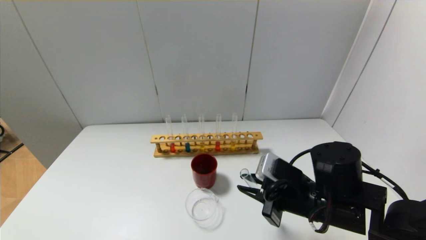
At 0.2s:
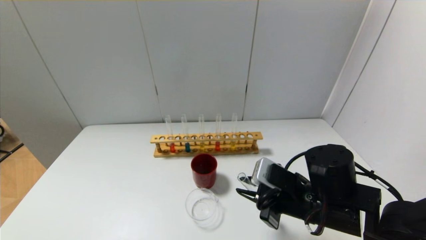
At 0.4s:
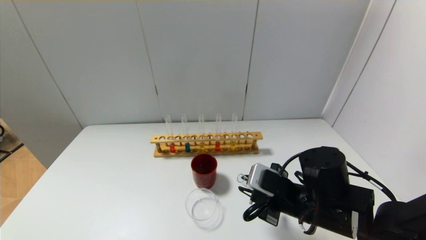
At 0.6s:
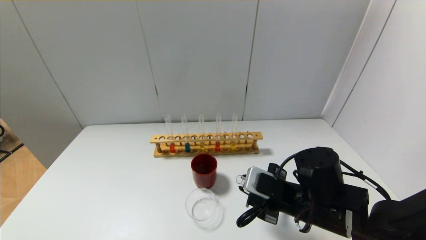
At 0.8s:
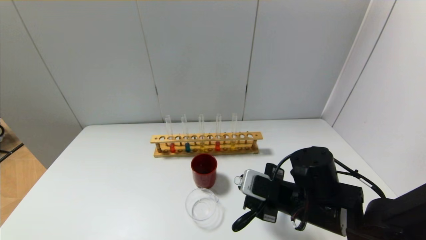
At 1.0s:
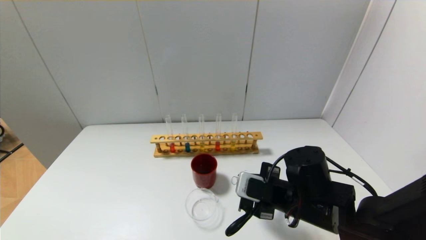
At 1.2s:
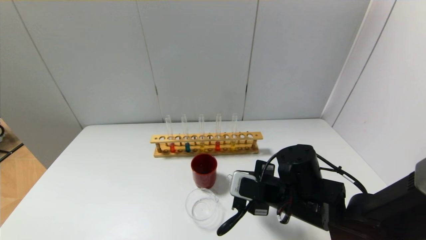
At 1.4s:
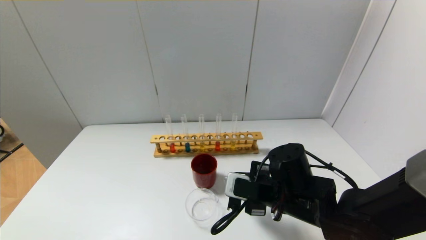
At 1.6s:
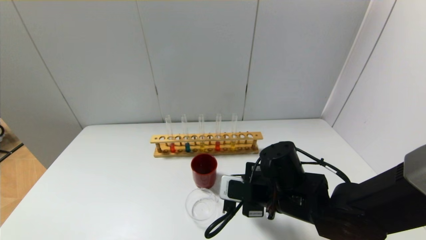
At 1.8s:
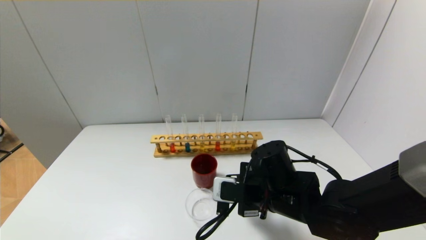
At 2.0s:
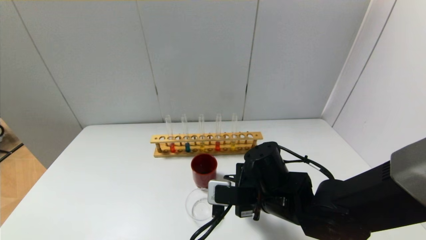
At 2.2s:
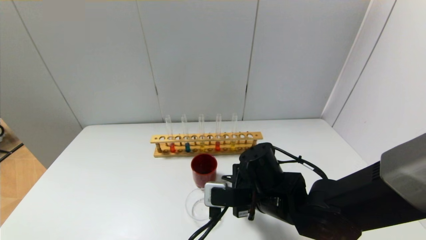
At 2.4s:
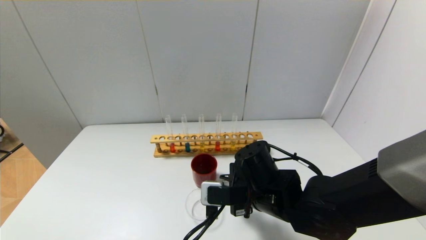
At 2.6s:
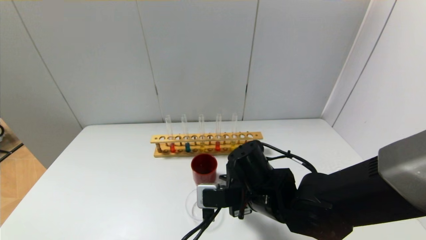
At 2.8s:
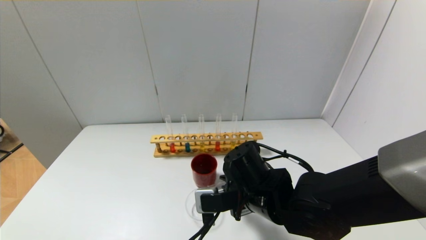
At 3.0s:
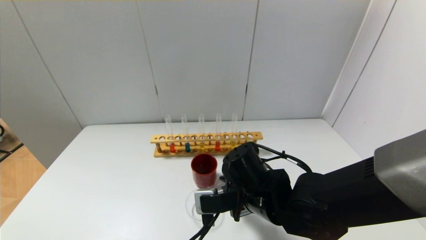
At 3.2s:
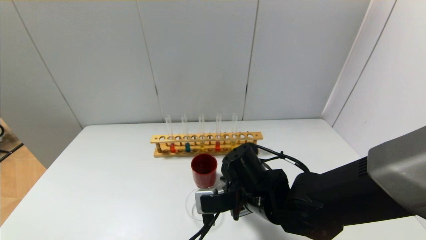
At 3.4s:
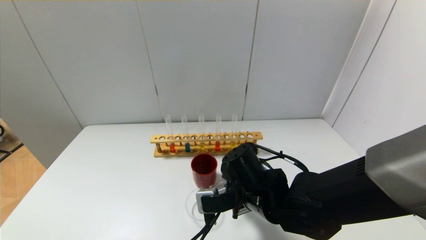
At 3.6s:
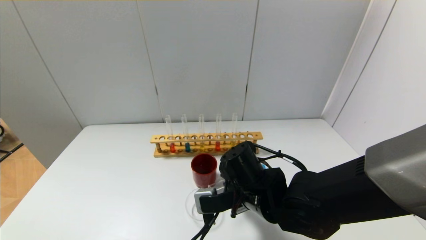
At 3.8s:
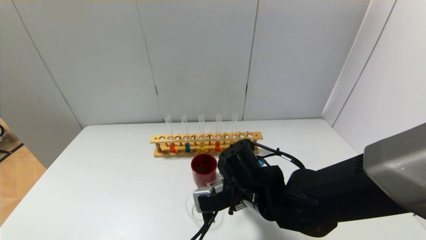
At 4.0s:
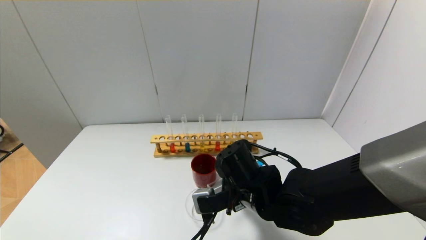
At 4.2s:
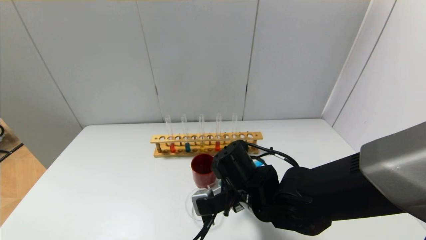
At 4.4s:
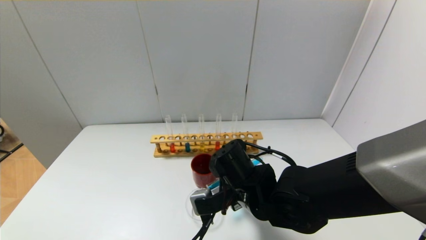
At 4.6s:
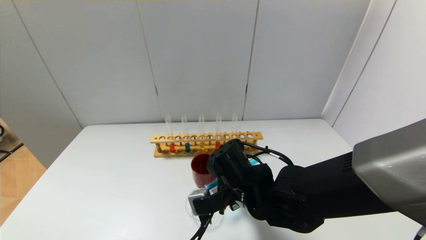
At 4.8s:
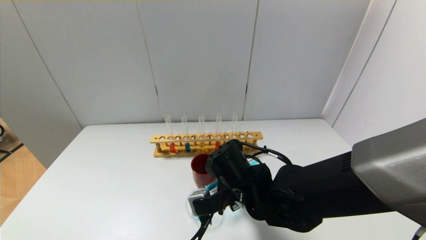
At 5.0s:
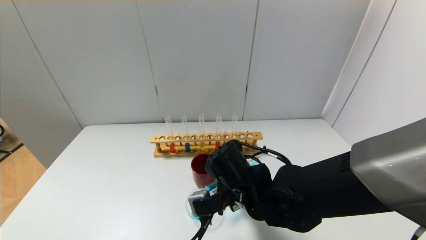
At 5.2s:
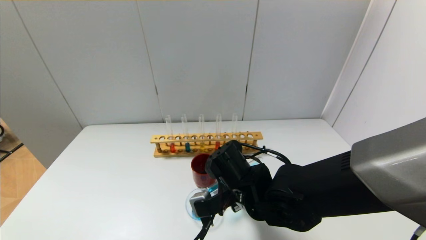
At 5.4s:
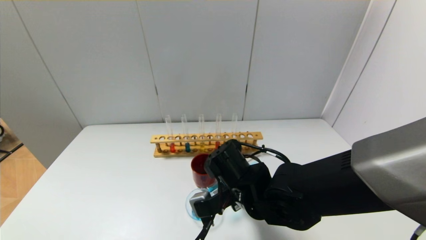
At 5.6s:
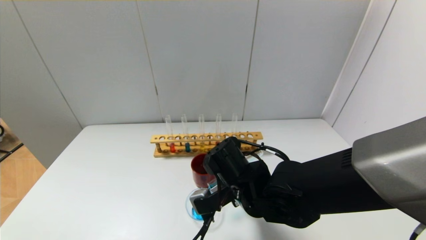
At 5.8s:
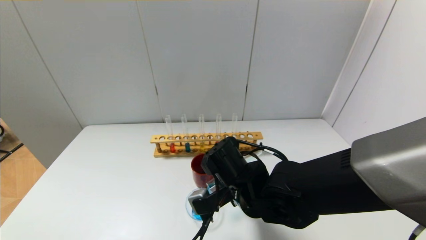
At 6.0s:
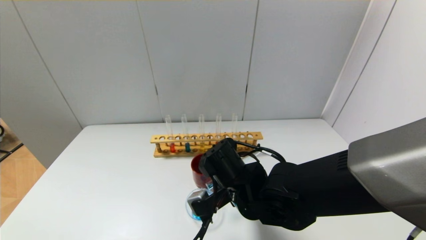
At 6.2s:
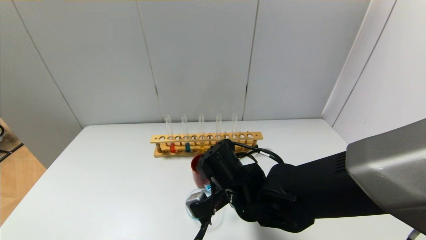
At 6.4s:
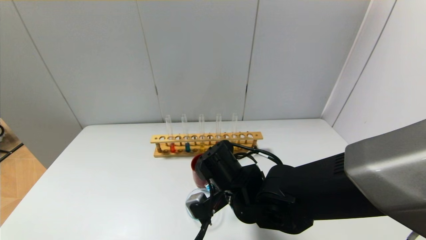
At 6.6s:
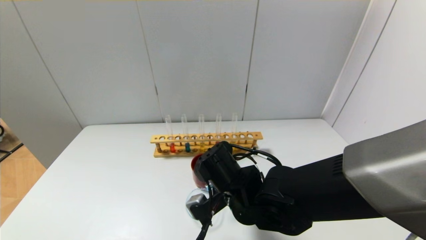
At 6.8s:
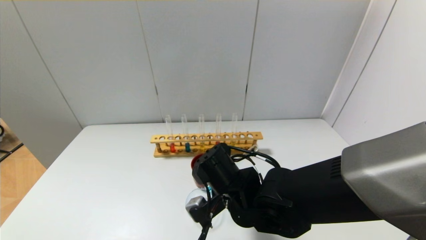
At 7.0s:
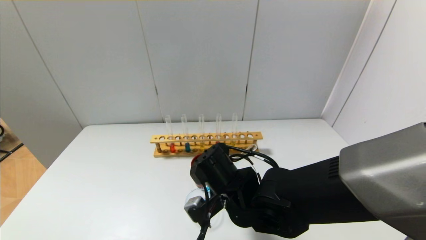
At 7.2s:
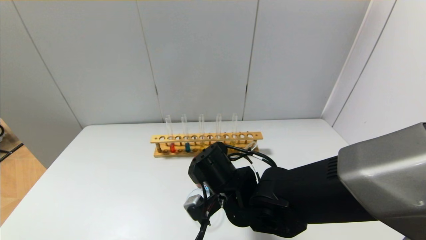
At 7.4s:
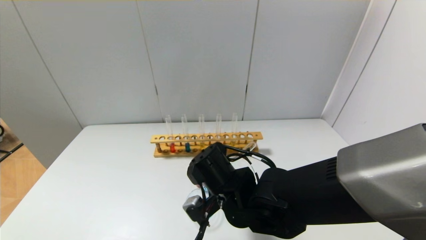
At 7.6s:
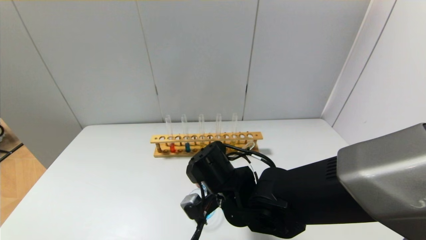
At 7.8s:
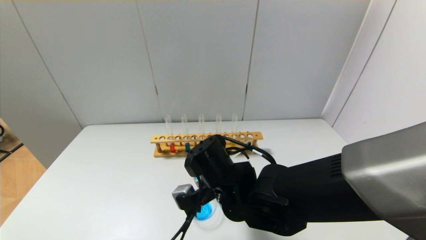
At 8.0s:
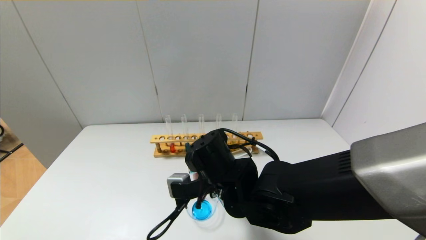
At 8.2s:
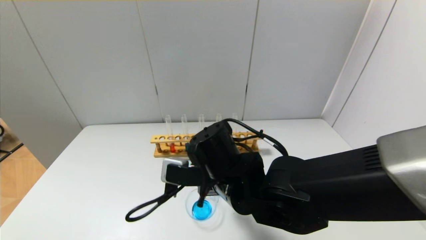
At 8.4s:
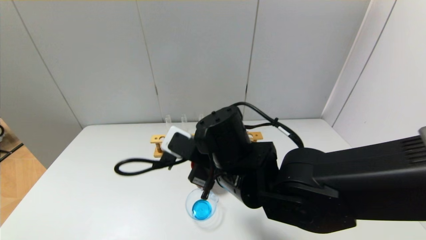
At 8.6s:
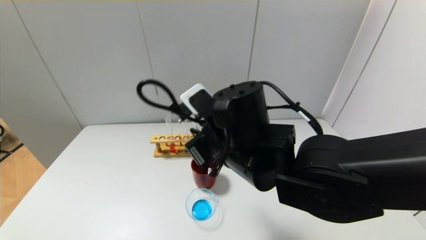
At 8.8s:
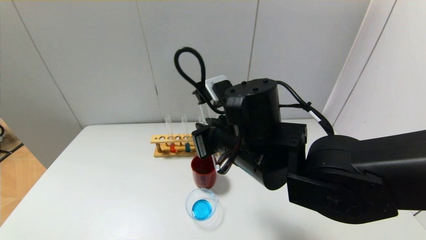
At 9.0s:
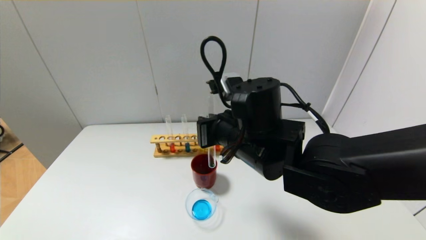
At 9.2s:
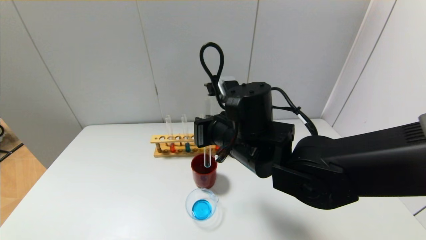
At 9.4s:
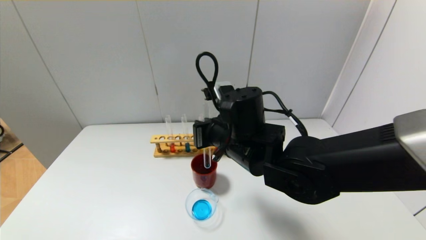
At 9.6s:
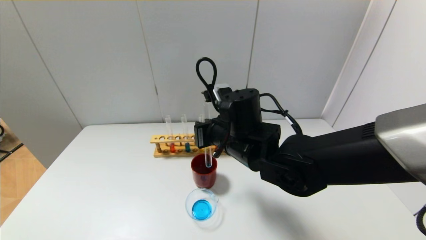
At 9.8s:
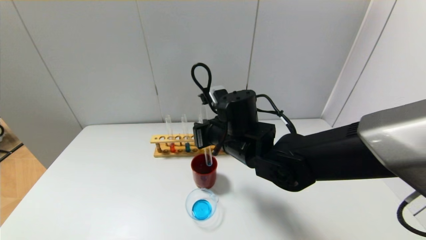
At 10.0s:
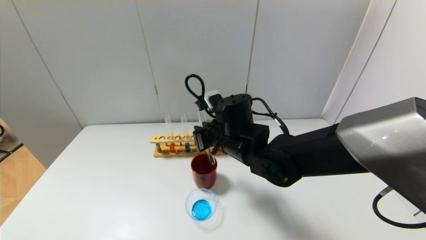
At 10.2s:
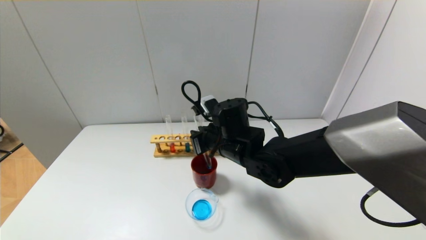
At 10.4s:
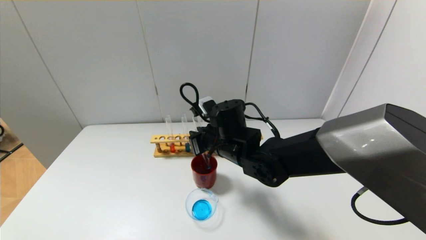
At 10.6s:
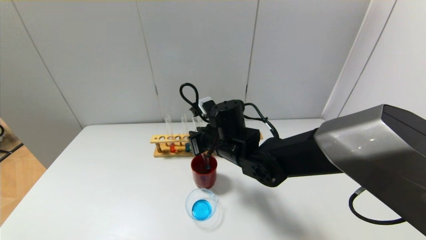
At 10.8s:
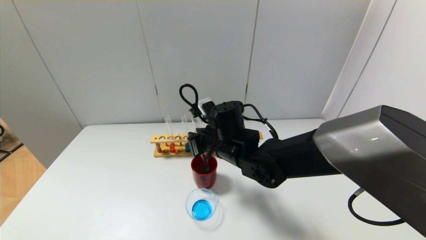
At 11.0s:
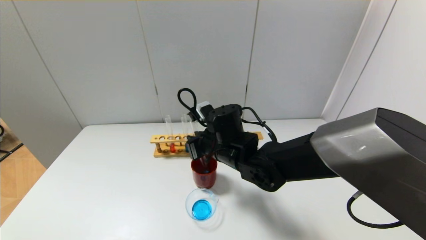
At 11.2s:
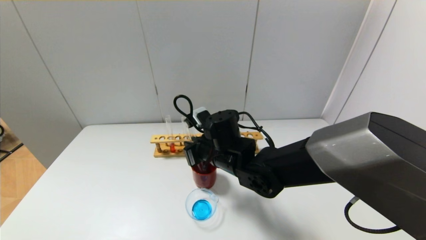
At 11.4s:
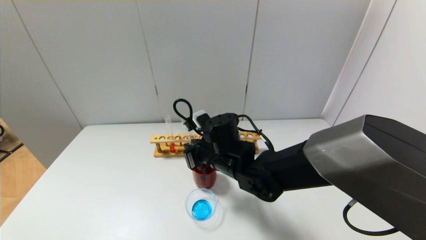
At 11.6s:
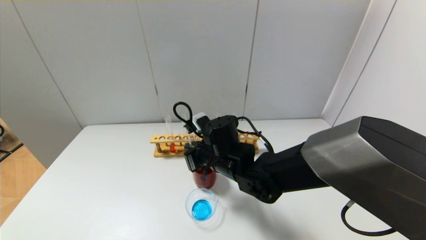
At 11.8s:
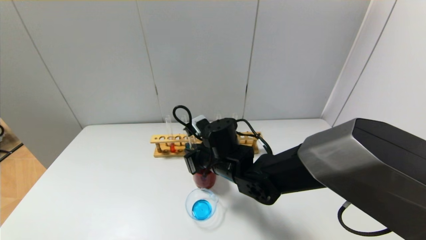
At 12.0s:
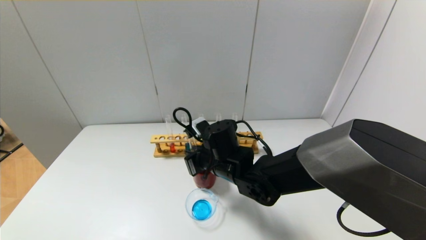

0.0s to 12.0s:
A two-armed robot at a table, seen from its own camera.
Step, 0.0s to 7.8s: Pour the blue reagent into the graduated cylinder with the right gripper.
0.0s to 1.6s: The right gripper ends up roughly 5 cm from where it was.
3.0s to 4.4s: The grippers move only a little.
4.4s to 7.6s: There are only small adjustments of the grippers.
7.6s to 9.0s: The right gripper is displaced upward by about 10 cm.
9.0s to 10.4s: The right gripper heads forward and downward, covering about 10 cm.
10.4s to 12.0s: The grippers make only small movements.

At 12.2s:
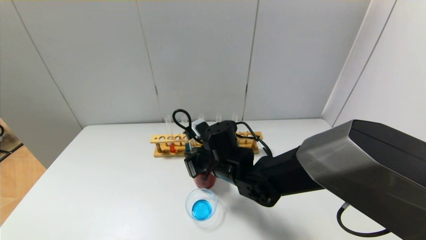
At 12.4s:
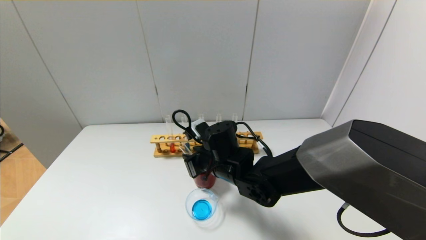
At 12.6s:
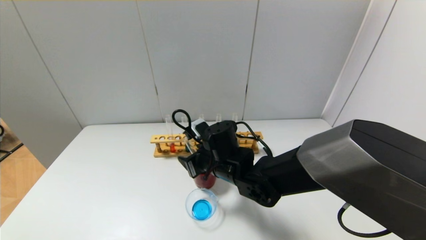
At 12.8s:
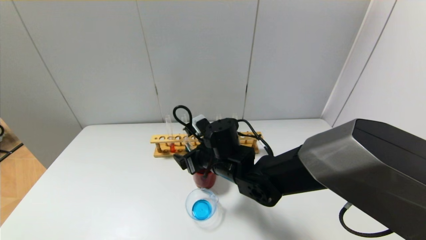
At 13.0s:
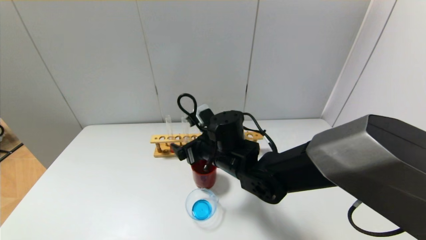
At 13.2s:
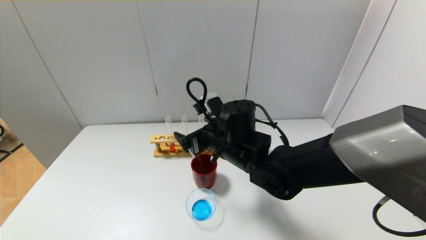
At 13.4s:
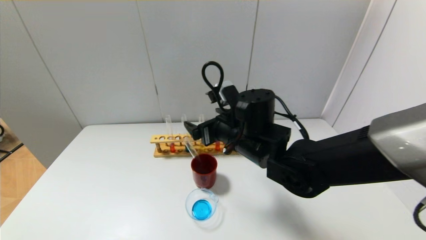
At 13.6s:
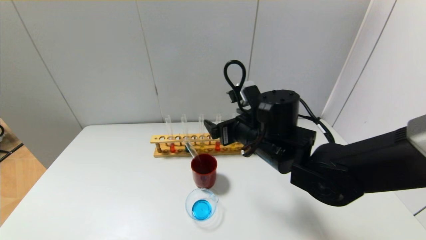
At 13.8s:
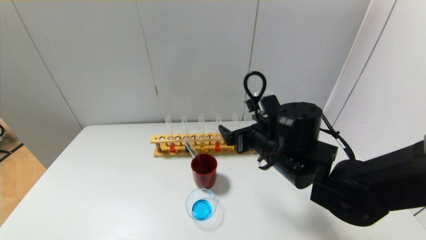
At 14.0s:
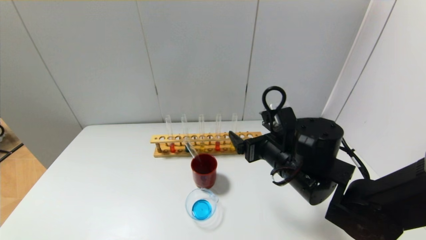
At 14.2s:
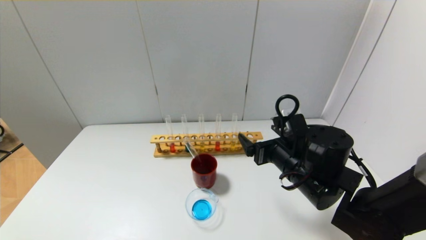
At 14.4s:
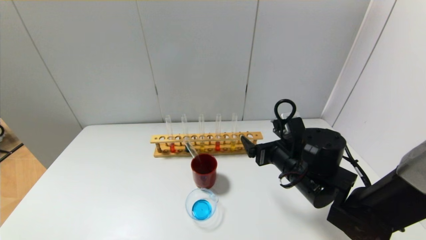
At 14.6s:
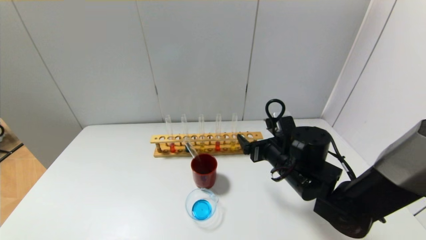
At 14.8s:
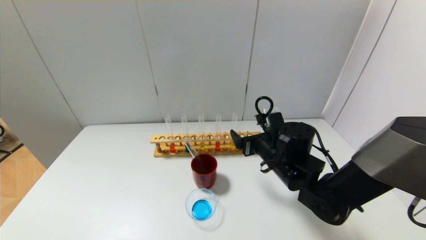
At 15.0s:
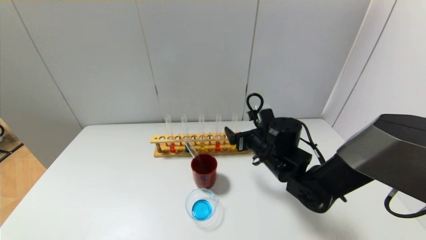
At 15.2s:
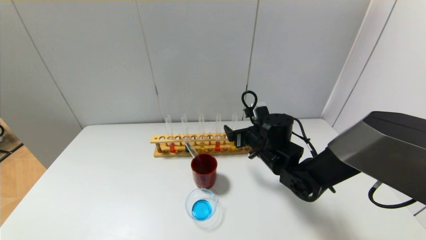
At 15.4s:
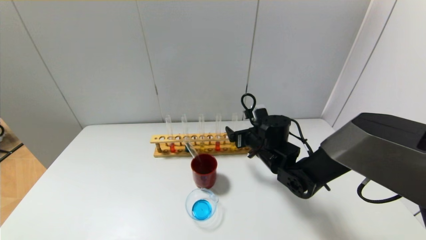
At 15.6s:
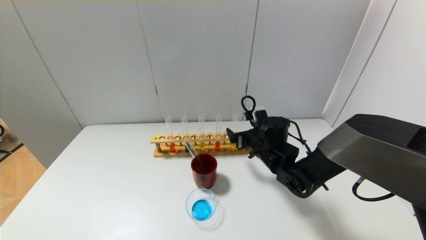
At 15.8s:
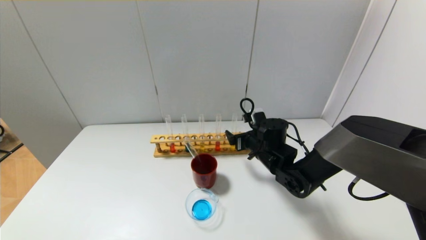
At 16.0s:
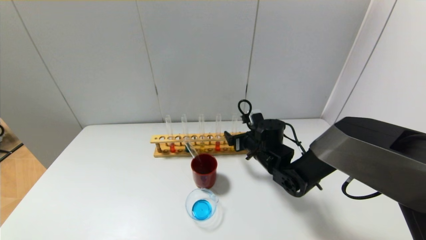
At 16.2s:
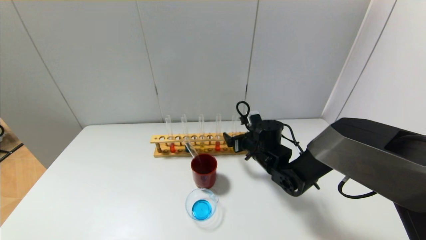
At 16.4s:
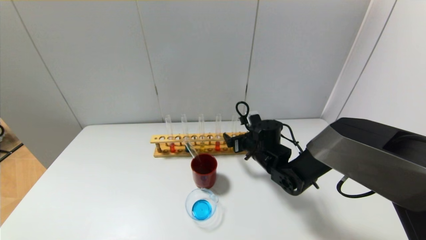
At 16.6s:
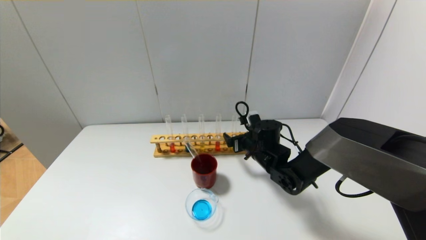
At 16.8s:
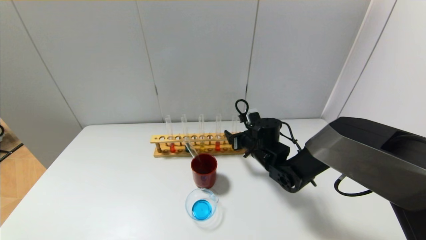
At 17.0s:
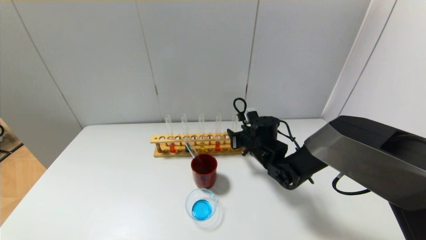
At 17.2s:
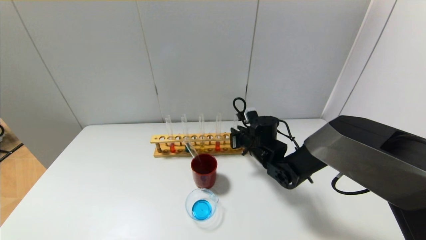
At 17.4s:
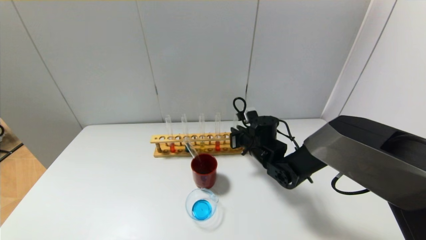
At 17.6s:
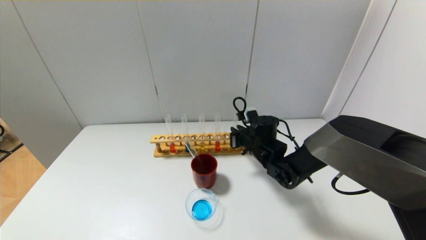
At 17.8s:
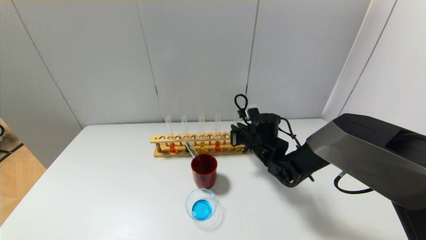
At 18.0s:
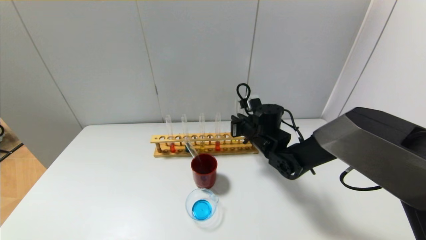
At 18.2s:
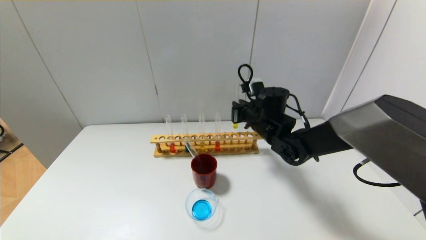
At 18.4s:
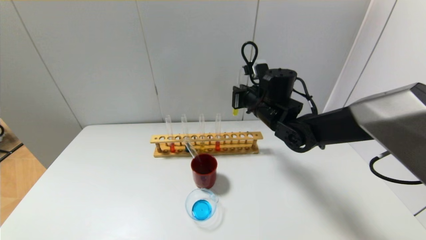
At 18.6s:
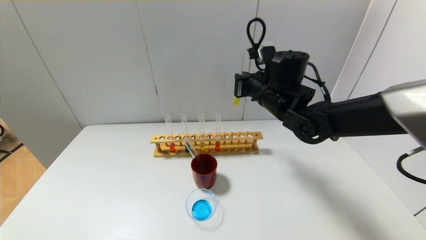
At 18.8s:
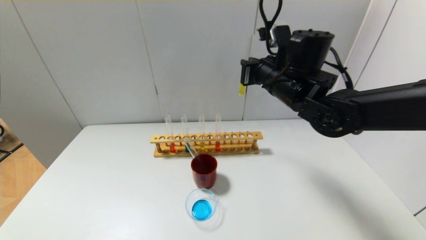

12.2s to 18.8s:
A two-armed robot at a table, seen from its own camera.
Step, 12.6s to 17.4s: Grasp the yellow reagent with the right gripper.
12.2s to 13.8s: The right gripper travels to the right and upward by approximately 10 cm, and opens.
13.8s to 15.4s: The right gripper is displaced forward and downward by approximately 10 cm.
15.4s to 17.2s: The right gripper closes.
17.2s to 18.8s: The right gripper travels upward by approximately 20 cm.
